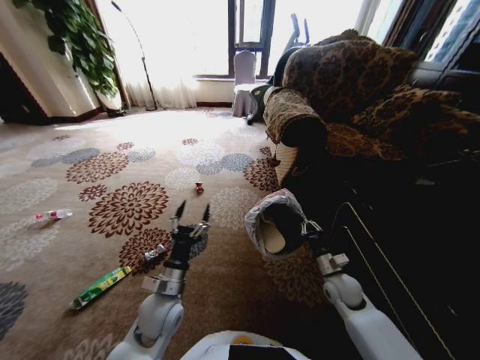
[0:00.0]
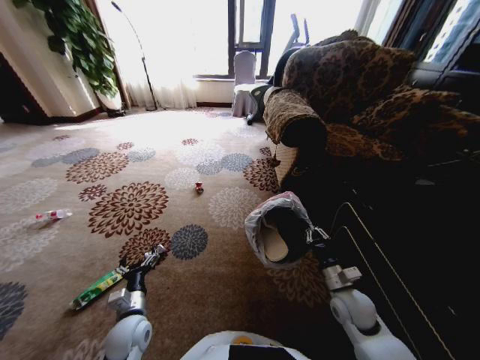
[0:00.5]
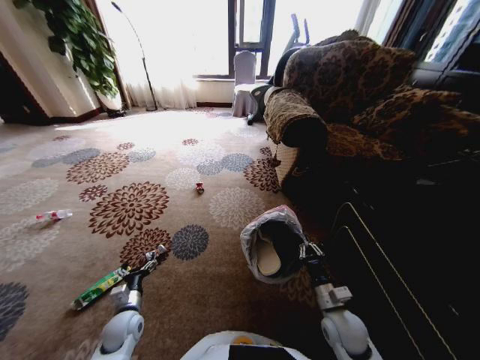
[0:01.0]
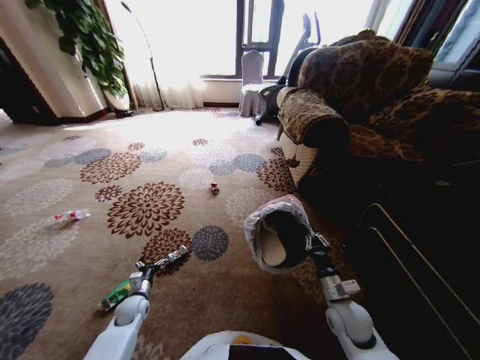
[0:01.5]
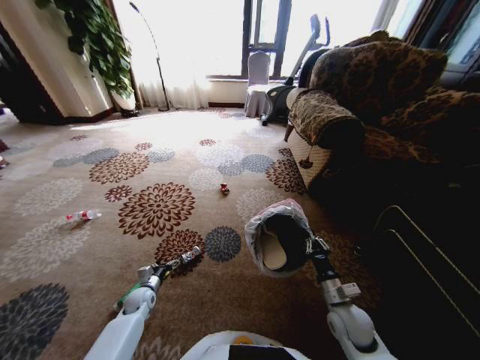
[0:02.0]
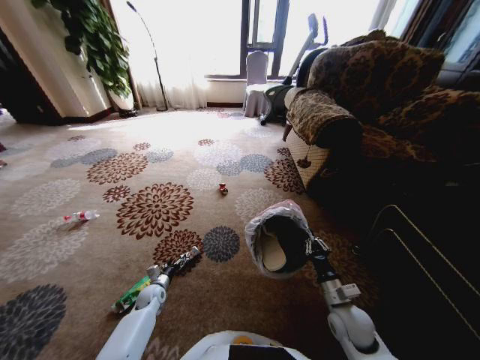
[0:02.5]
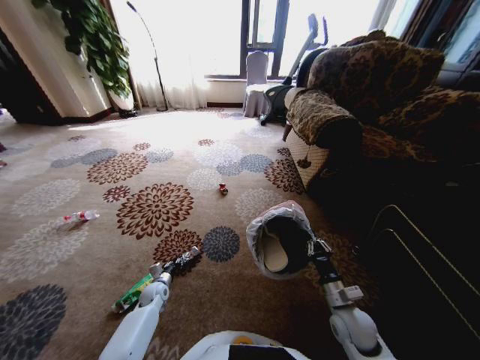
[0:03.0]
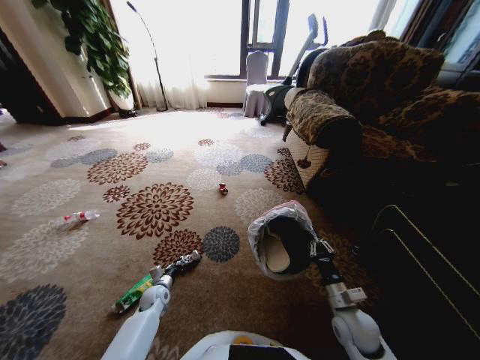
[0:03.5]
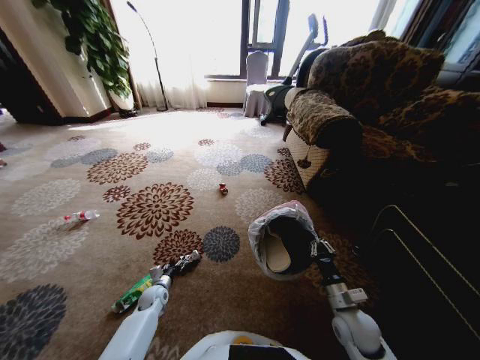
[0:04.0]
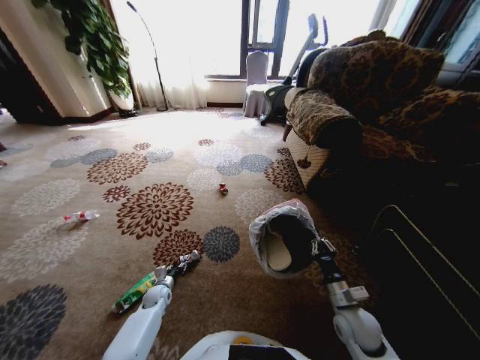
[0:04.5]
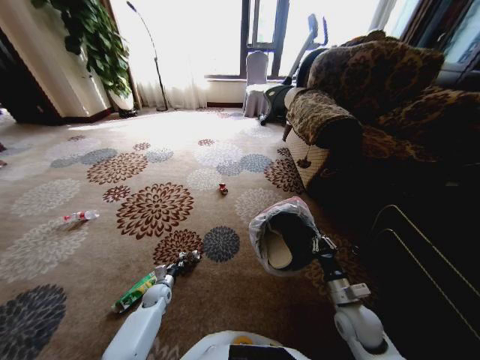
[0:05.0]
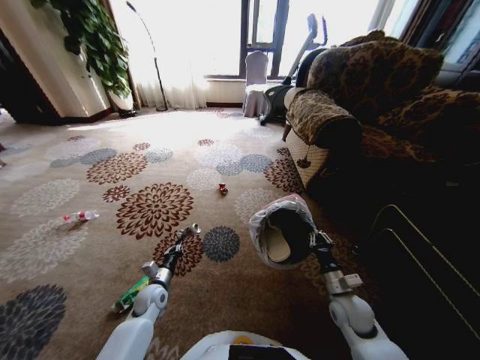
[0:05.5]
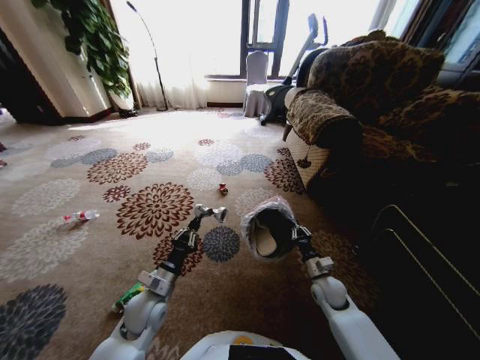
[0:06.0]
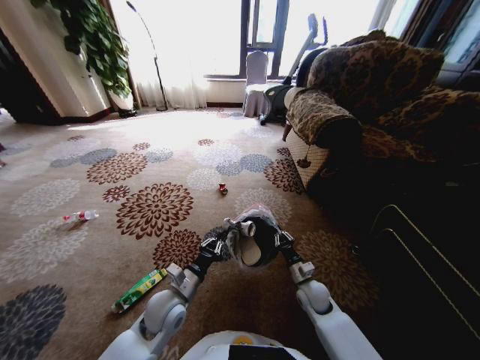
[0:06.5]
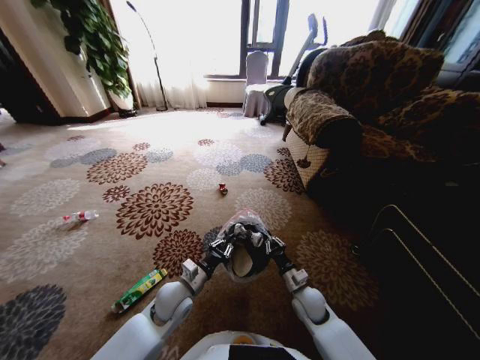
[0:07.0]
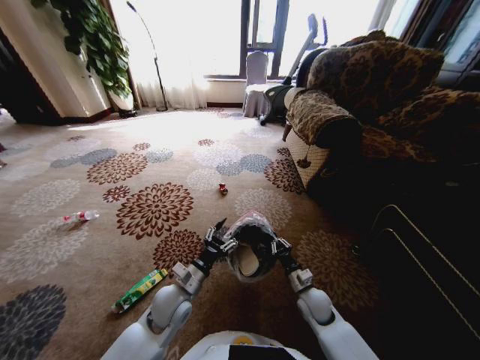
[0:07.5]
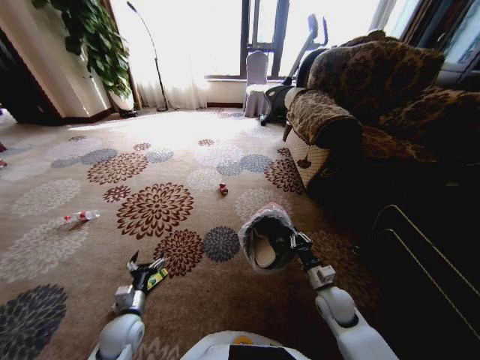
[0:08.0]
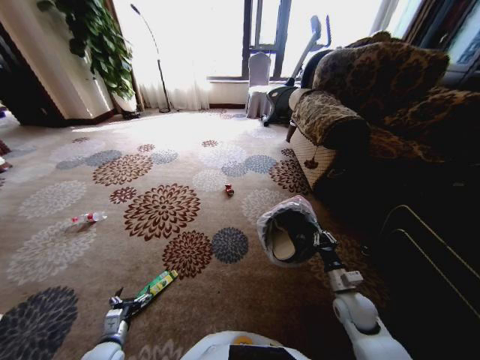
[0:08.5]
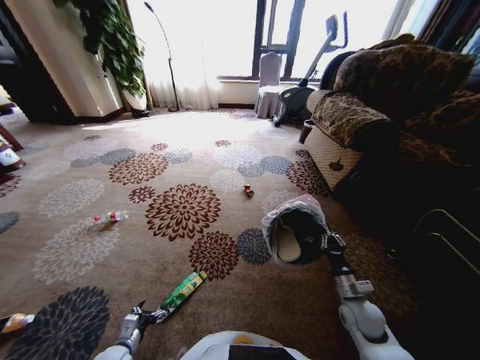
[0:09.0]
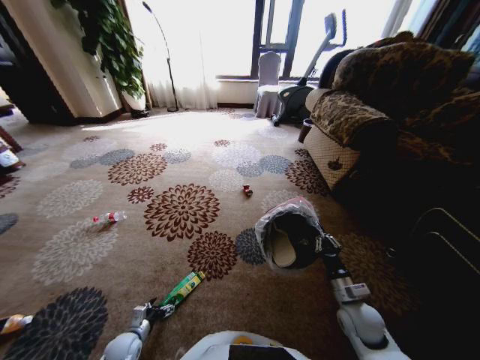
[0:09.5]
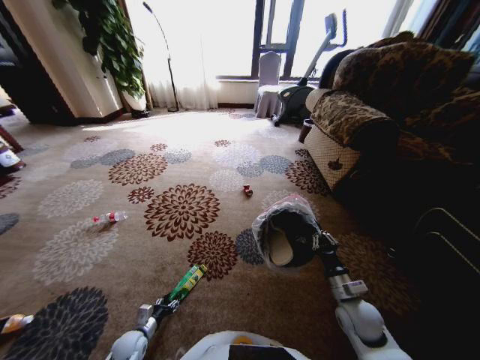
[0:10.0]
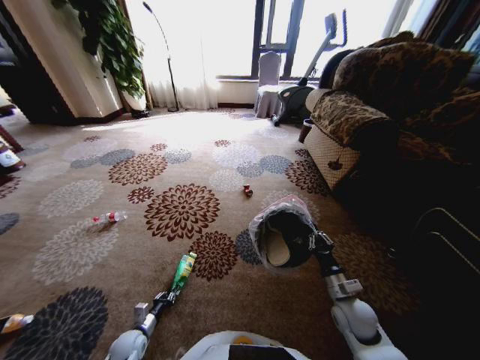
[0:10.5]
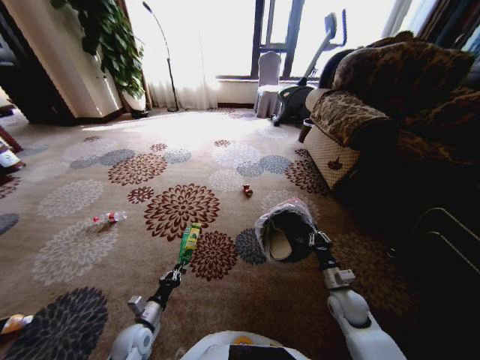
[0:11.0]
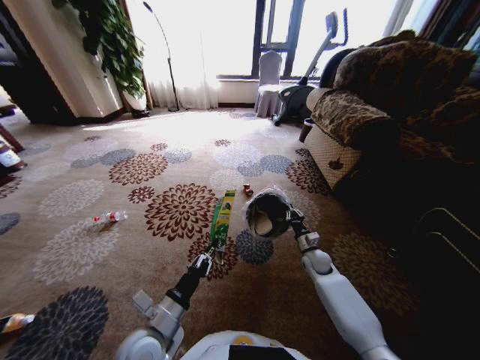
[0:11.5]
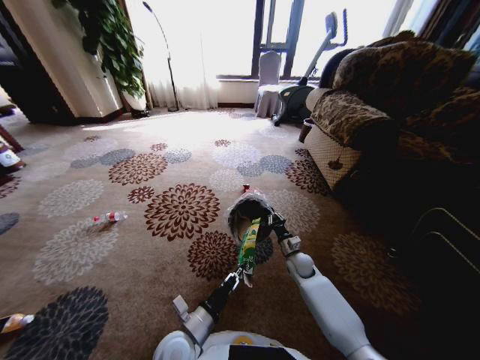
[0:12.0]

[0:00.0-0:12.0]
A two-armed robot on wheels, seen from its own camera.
Task of the whole recording: Pick up the trash from the ground and place it into the trash bin.
0.0 to 2.0 s: The left gripper travels downward and to the left by approximately 25 cm. The right gripper shifts some 10 cm backward.
2.0 to 4.0 s: The left gripper closes up.
4.0 to 6.0 s: The right gripper is displaced forward by about 10 cm; the left gripper travels upward and to the right by roughly 20 cm, and closes.
6.0 to 8.0 s: The left gripper goes roughly 10 cm to the left and downward, and opens its fingers.
8.0 to 10.0 s: The right gripper changes place by approximately 5 cm. The left gripper goes some 15 cm downward, and closes.
10.0 to 12.0 s: The right gripper goes roughly 20 cm forward, to the left and downward; the left gripper is displaced to the right and upward by roughly 30 cm, and closes up.

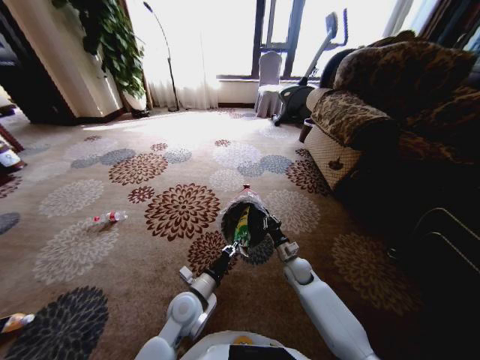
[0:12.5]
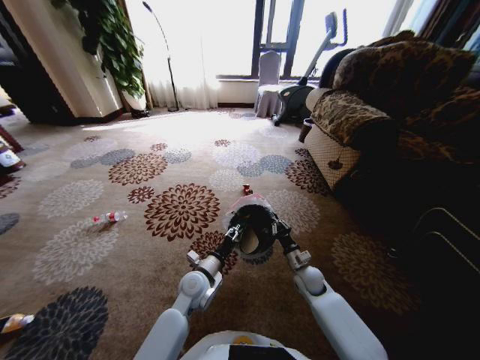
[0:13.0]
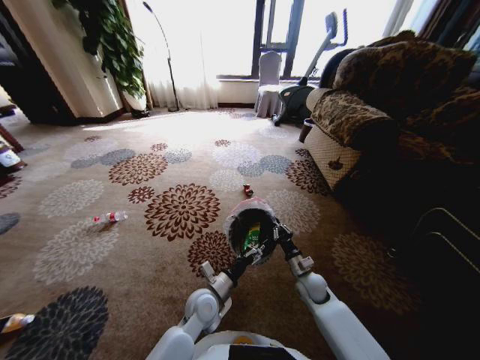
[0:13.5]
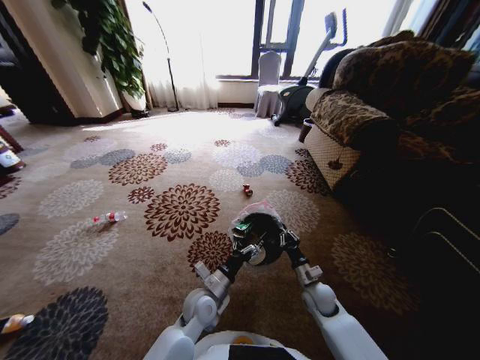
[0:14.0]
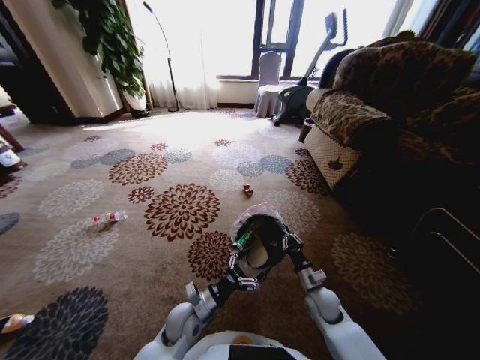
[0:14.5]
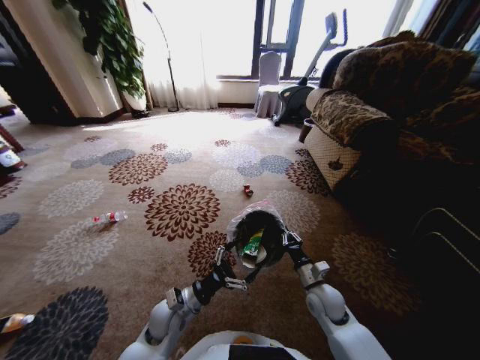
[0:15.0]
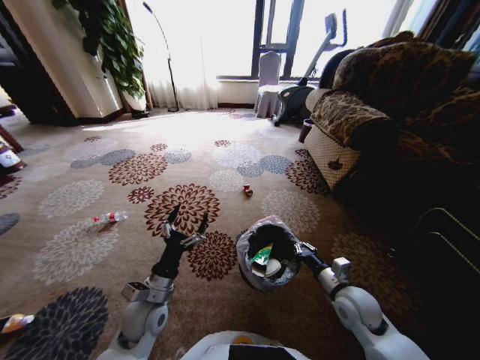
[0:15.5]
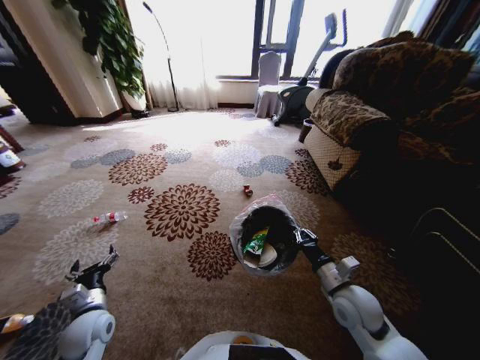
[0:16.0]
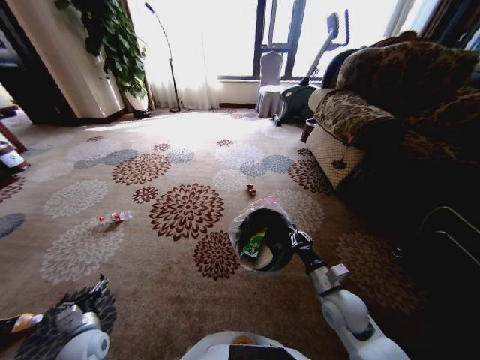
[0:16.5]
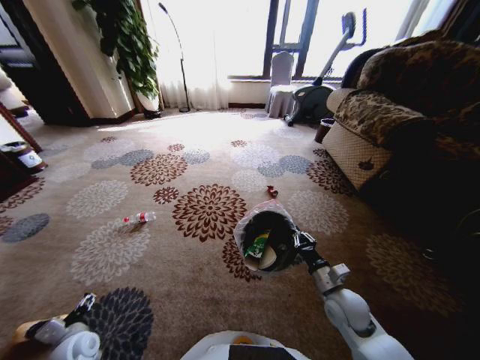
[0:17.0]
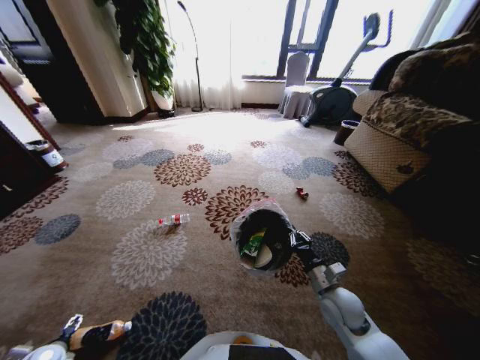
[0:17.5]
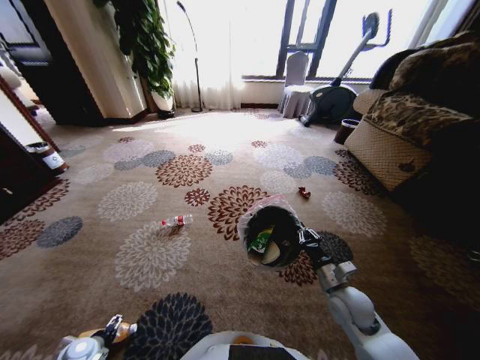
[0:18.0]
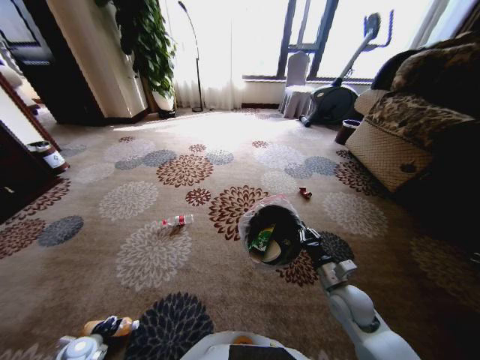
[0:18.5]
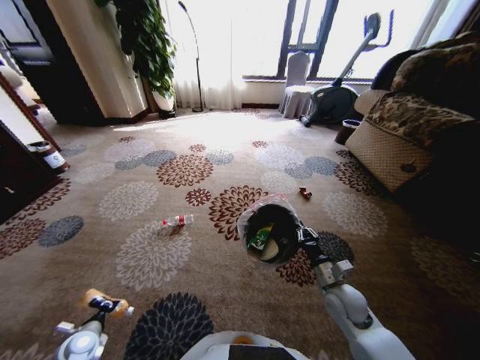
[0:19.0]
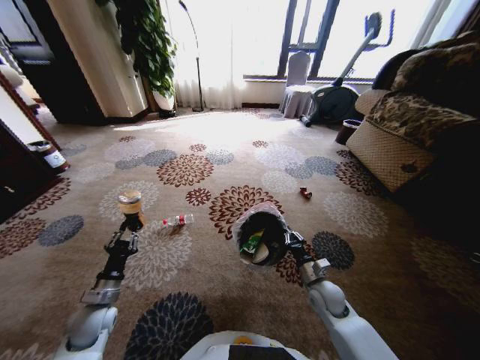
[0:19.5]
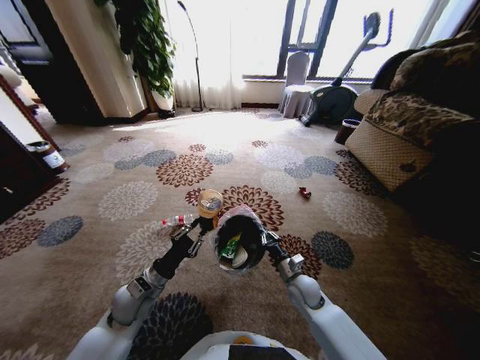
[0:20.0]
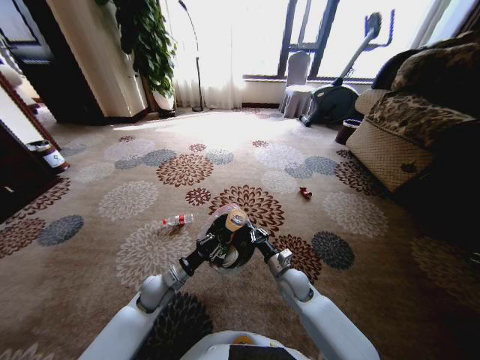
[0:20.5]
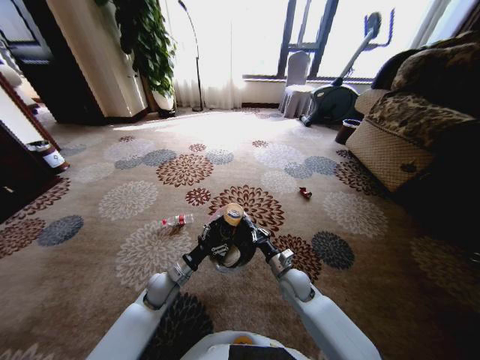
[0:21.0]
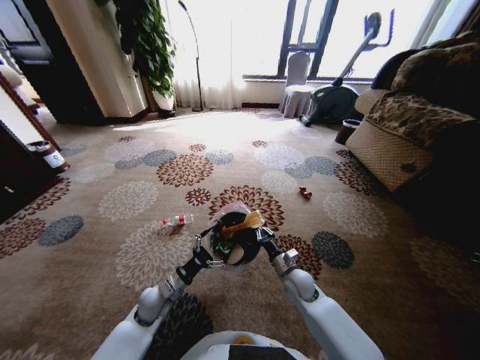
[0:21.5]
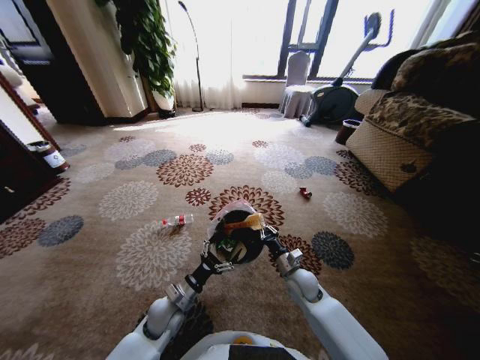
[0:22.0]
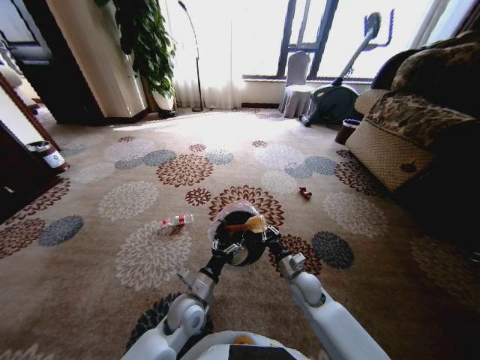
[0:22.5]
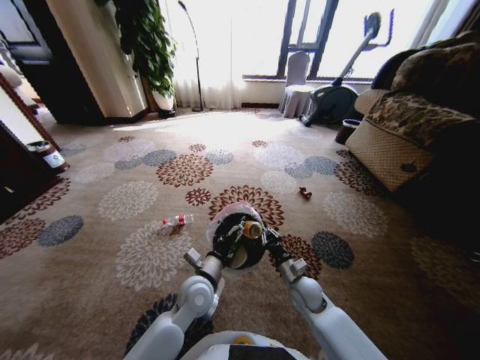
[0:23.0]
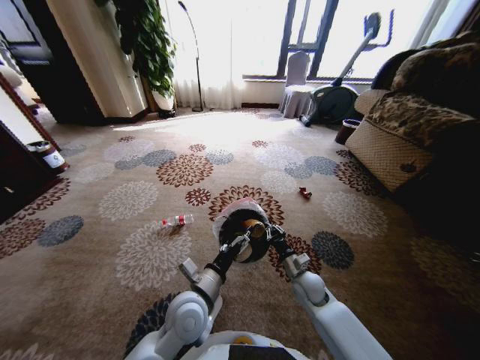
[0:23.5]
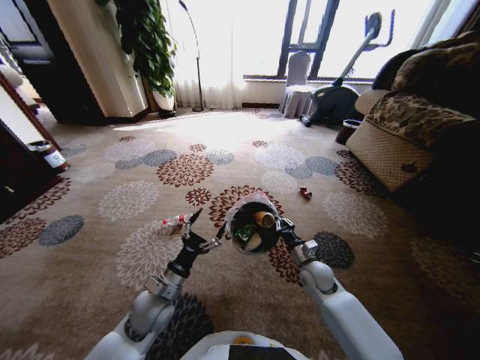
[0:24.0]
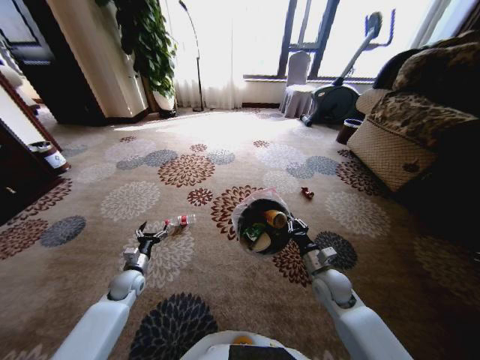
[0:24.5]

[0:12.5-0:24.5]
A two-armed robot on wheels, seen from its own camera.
Task of the whole recording: Pick up the trash from the ground and place it into the trash bin.
12.5 to 14.5 s: The right gripper heads backward, covering approximately 10 cm, while the left gripper opens up.
14.5 to 16.5 s: The right gripper is displaced upward by roughly 10 cm, while the left gripper shifts roughly 25 cm to the left.
16.5 to 18.5 s: The left gripper shifts approximately 10 cm downward and to the left.
18.5 to 20.5 s: The left gripper shifts about 25 cm to the right and forward, and closes up; the right gripper is displaced to the left, downward and forward by some 15 cm.
20.5 to 22.5 s: The left gripper shifts roughly 10 cm to the right and backward, and opens.
22.5 to 24.5 s: The left gripper is displaced to the left by some 25 cm. The right gripper goes approximately 5 cm to the right.

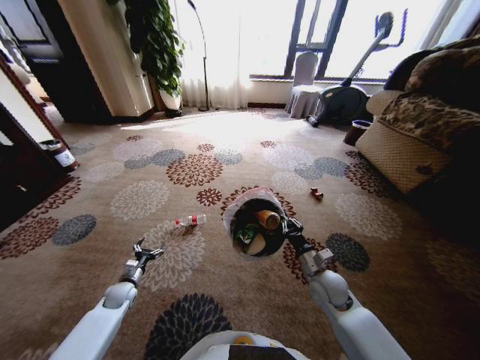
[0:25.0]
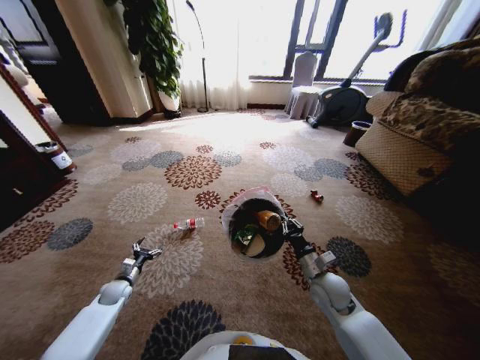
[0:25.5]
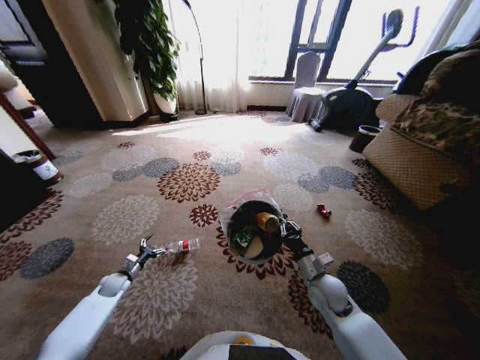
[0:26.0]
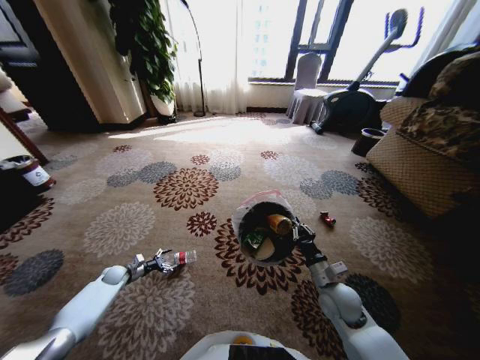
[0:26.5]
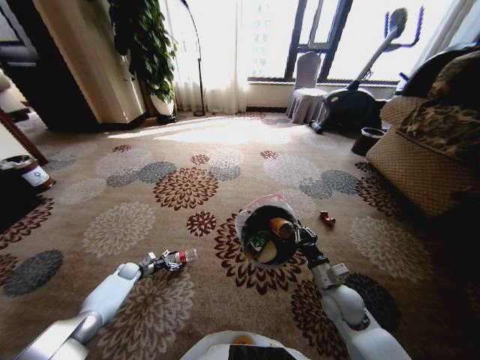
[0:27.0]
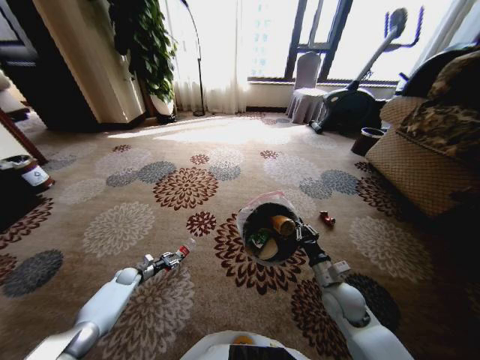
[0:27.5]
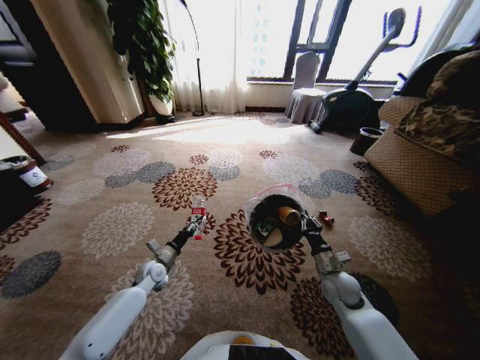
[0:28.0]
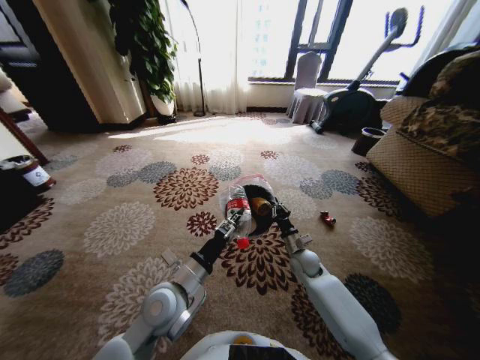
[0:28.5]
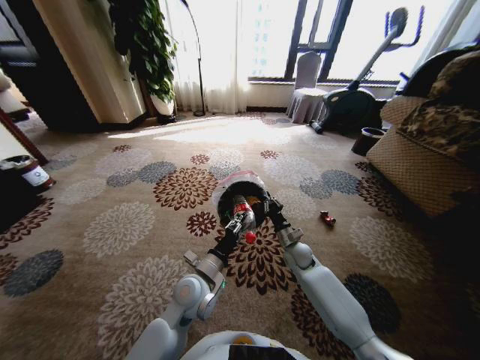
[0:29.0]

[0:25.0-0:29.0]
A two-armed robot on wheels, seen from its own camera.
Task of the whole recording: Pick up the trash from the ground and place it into the trash bin.
25.0 to 27.0 s: The left gripper shifts roughly 10 cm forward, to the left and downward.
27.0 to 29.0 s: The right gripper goes roughly 15 cm forward and to the left. The left gripper shifts about 40 cm to the right and upward, and closes.
